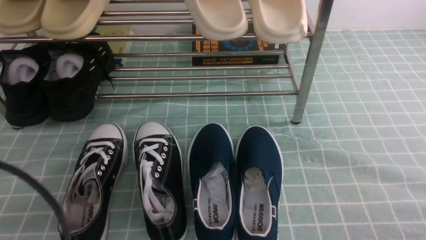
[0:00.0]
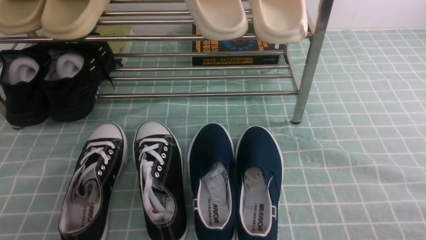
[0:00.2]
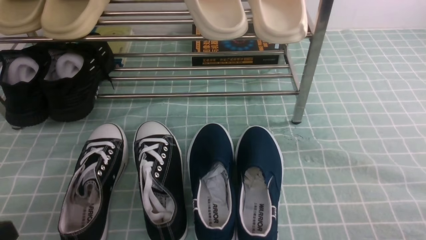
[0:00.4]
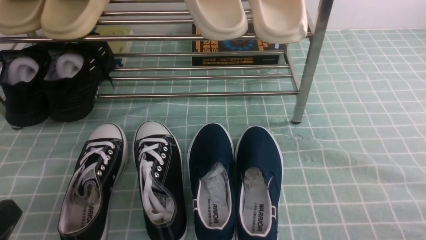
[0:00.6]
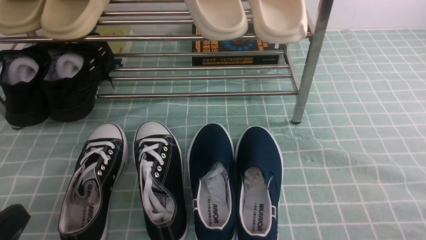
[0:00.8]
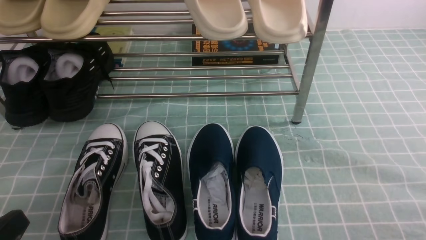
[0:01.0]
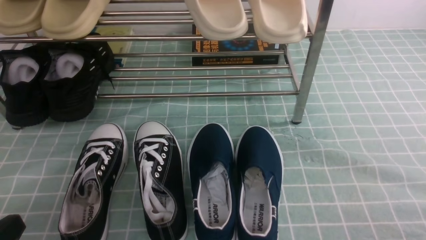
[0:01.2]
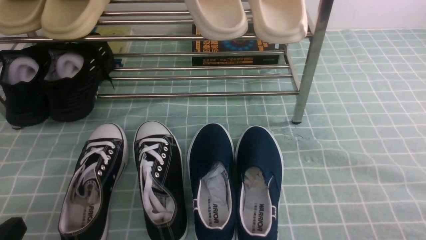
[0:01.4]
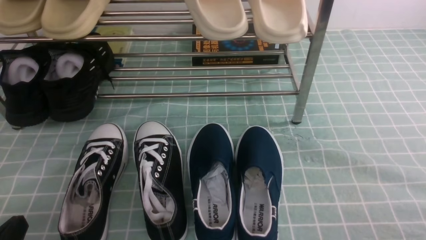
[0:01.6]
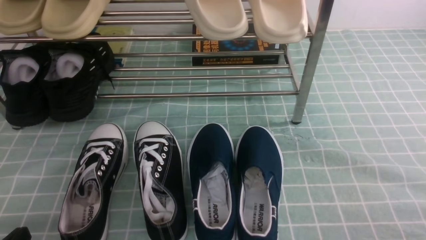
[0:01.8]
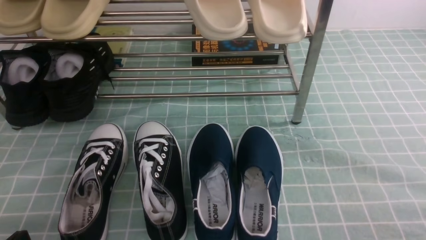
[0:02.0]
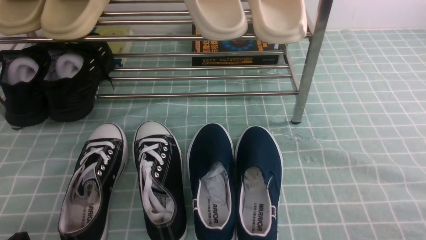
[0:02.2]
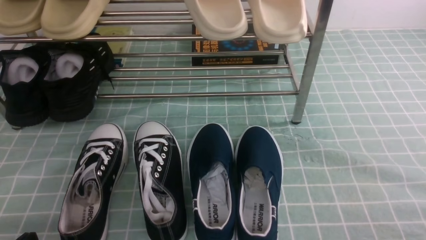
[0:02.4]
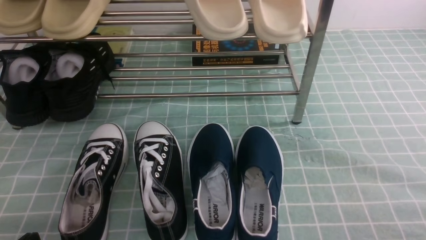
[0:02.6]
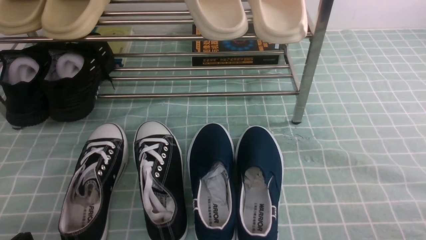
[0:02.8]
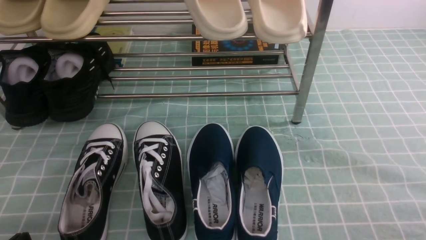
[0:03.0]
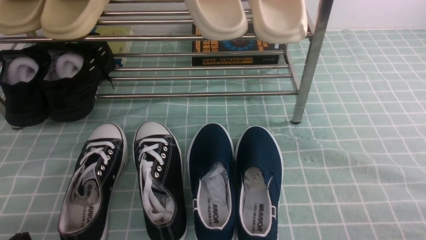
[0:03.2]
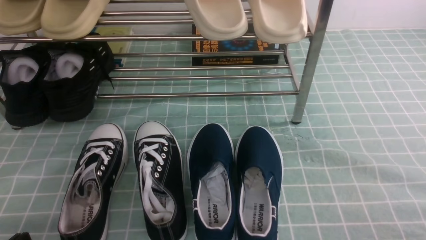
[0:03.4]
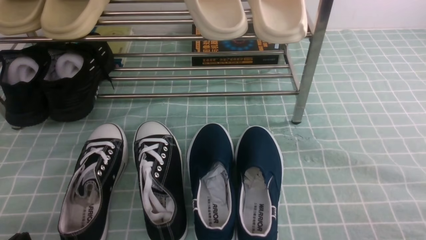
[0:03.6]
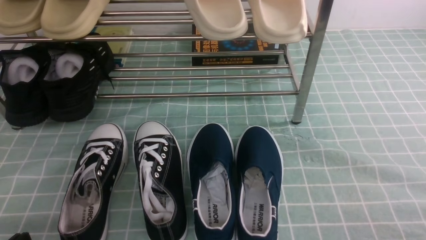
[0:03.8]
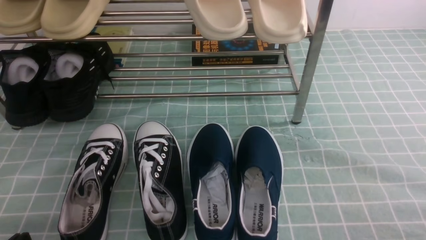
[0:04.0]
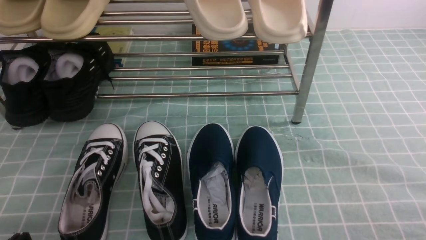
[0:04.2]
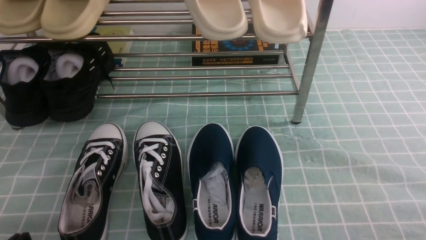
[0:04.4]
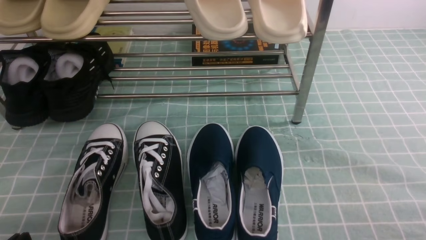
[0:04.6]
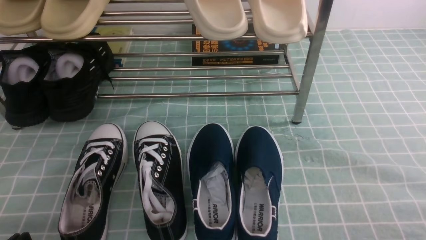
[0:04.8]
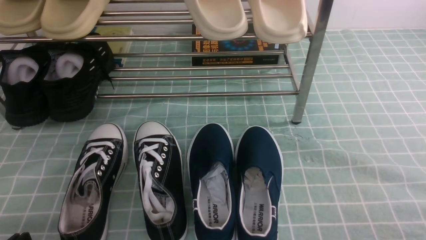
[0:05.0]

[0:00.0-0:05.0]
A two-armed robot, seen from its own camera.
0:00.0 to 0:01.6: The left gripper shifts some 15 cm downward.
0:03.4 to 0:05.0: Both grippers stay put.
